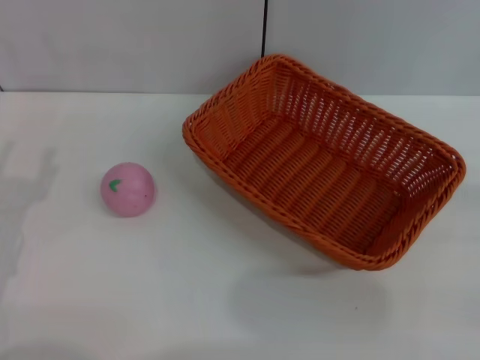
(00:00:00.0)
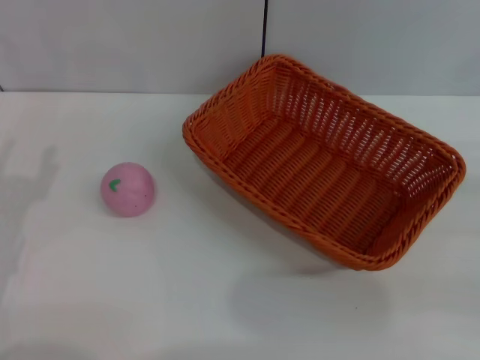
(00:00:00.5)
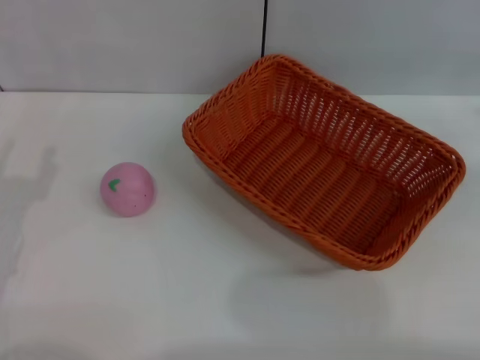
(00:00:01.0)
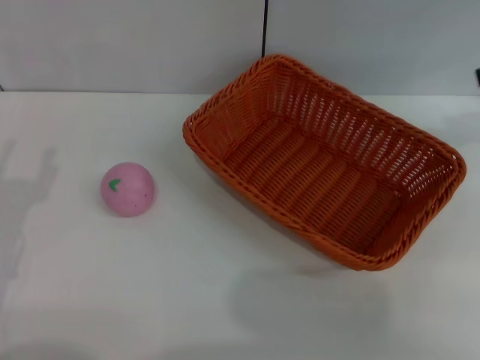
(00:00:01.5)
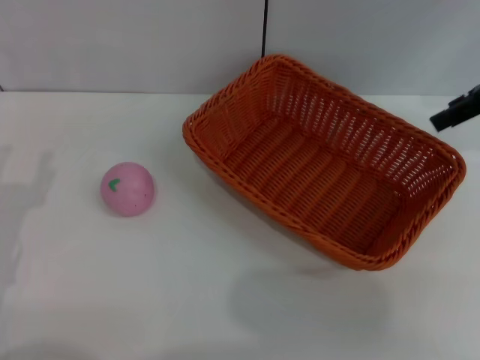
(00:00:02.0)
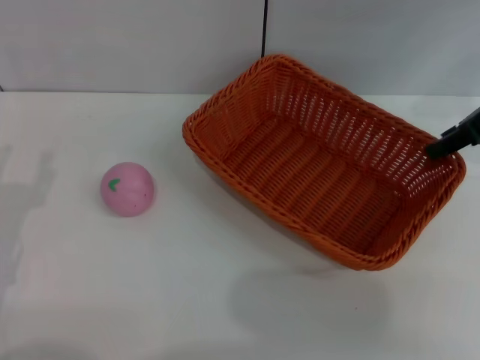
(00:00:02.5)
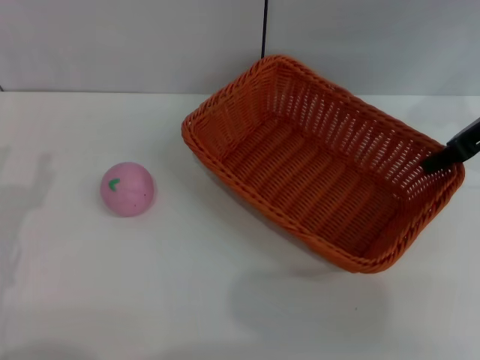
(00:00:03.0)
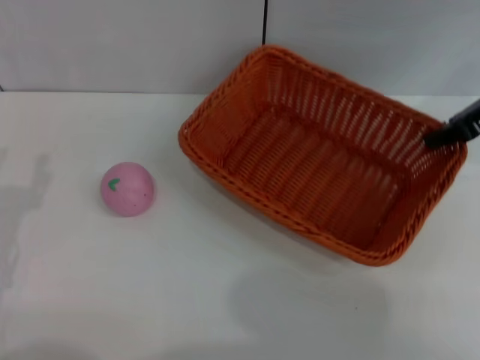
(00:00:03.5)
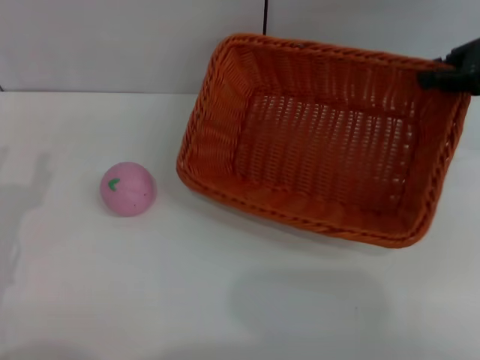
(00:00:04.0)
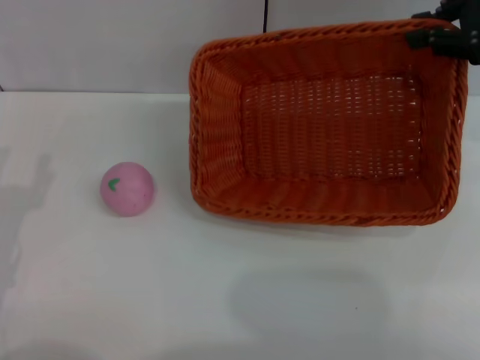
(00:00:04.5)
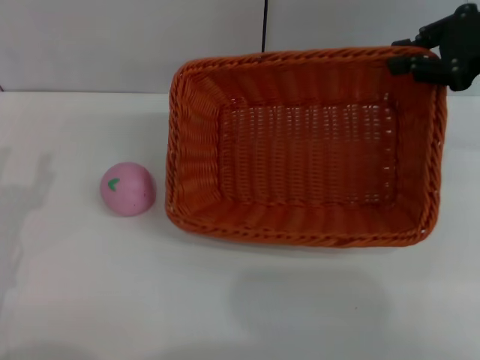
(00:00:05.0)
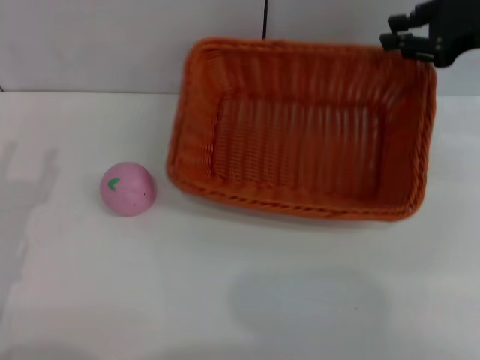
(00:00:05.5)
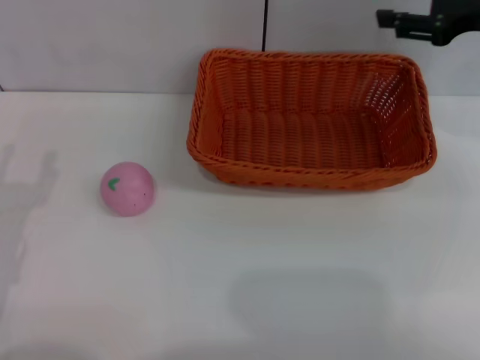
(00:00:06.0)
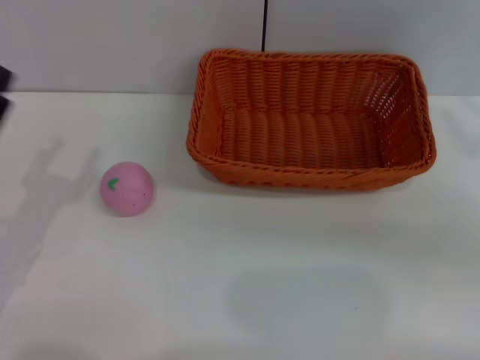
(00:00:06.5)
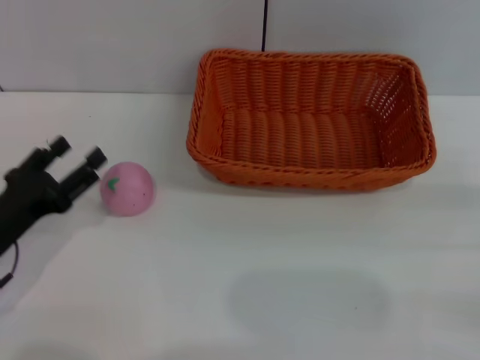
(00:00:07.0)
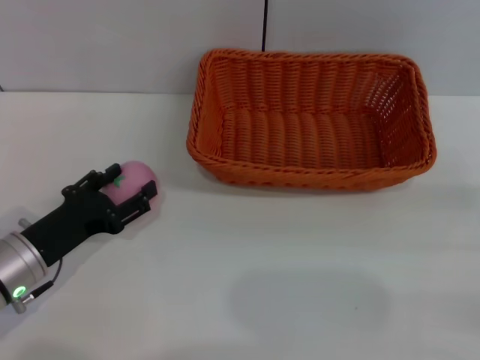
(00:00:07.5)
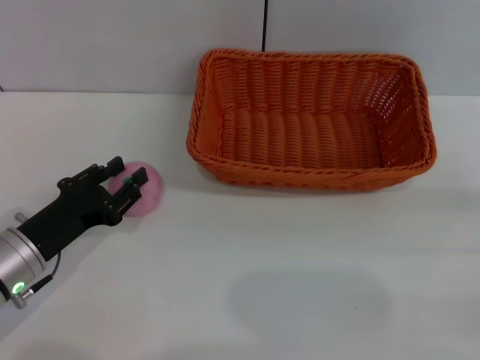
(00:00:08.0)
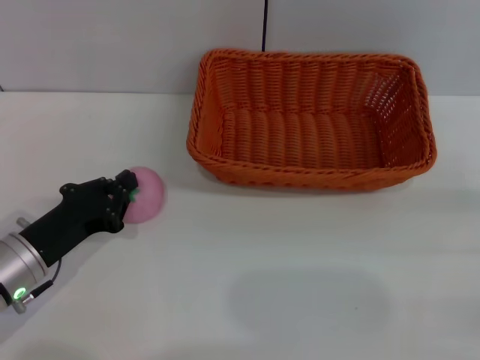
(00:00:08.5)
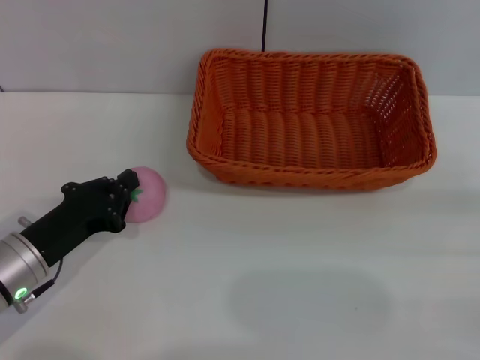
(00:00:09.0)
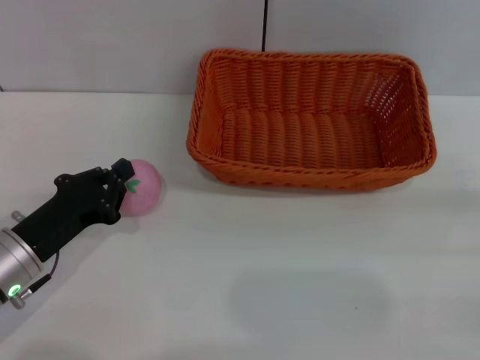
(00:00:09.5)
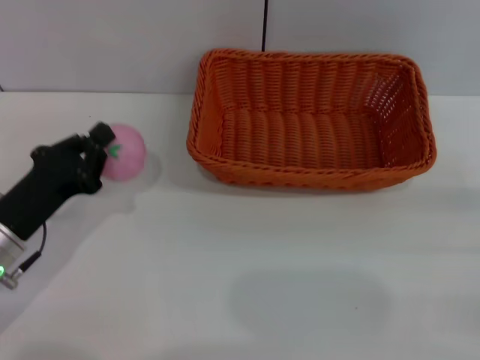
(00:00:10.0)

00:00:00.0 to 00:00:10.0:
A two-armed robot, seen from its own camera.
Step, 00:00:04.5 to 00:00:06.0: Place the dark basket in the center of view with the right gripper.
00:00:00.0 to 00:00:02.0: The right gripper shifts approximately 30 cm forward, upward and to the left.
00:00:02.0 to 00:00:04.0: The right gripper closes its fingers.
00:00:04.0 to 00:00:06.0: The right gripper opens.
00:00:06.0 to 00:00:08.0: The left gripper heads downward and forward, covering about 10 cm. The right gripper shifts approximately 25 cm backward, downward and to the right.
00:00:08.0 to 00:00:10.0: The left gripper closes.

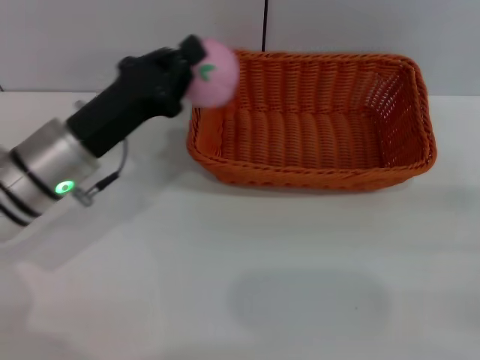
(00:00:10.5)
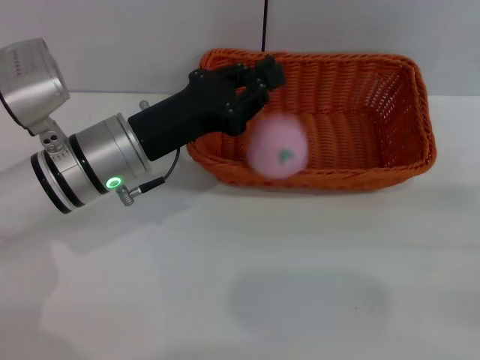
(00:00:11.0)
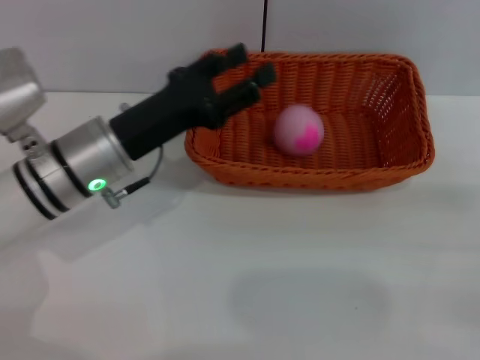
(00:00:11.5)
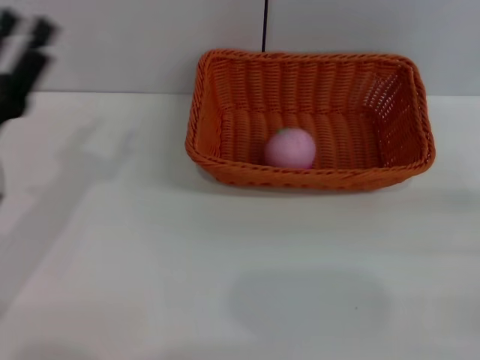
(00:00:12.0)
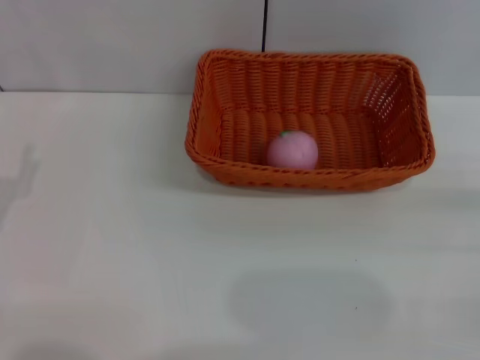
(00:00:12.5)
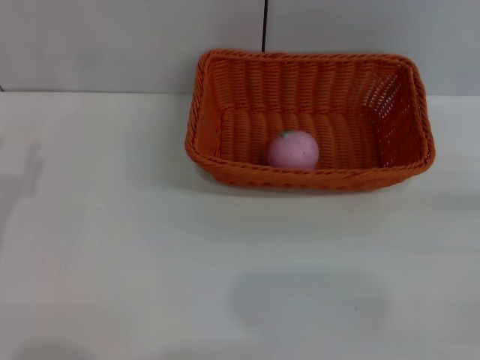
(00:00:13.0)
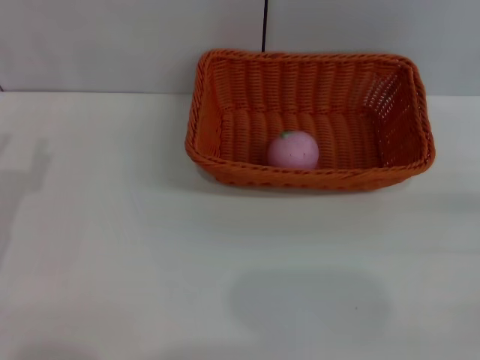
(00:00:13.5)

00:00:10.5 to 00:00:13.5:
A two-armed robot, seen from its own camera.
Step, 00:00:10.5 to 00:00:11.5: Place the peach into the basket with the left gripper.
00:00:10.5 to 00:00:12.0: The left gripper shifts about 10 cm to the left and backward, and opens.
00:00:12.0 to 00:00:13.5: The left gripper changes place by about 5 cm.

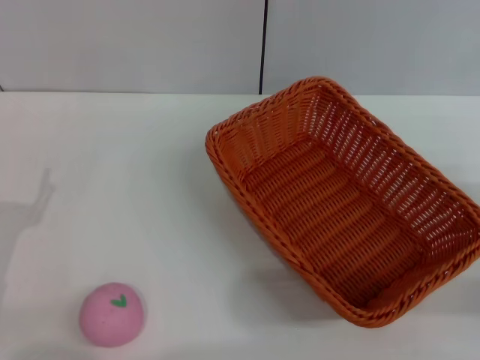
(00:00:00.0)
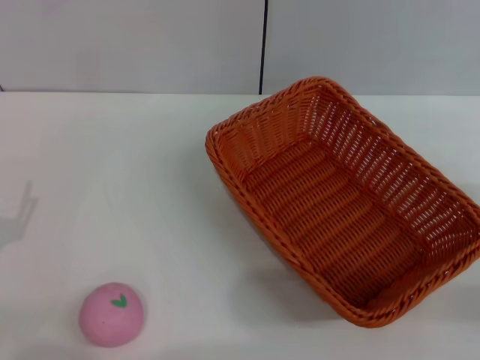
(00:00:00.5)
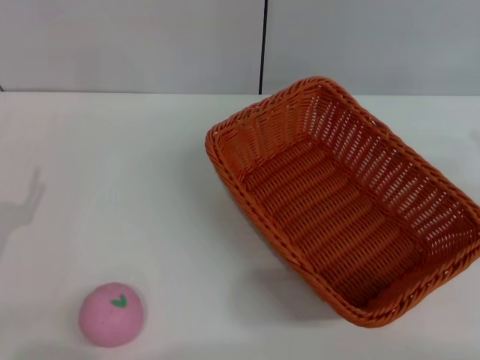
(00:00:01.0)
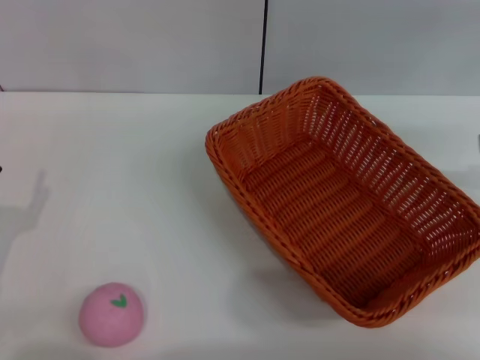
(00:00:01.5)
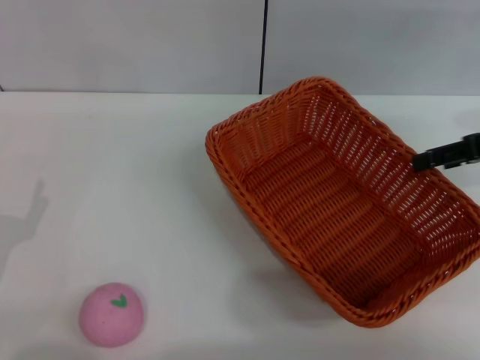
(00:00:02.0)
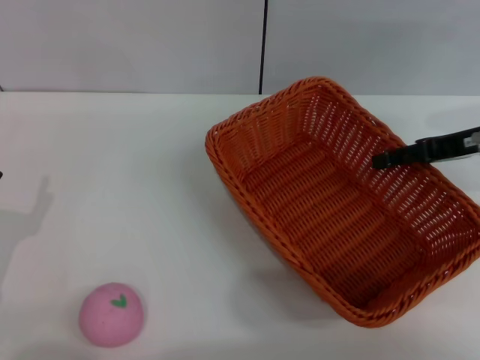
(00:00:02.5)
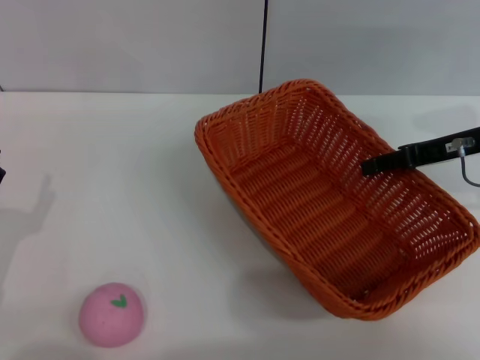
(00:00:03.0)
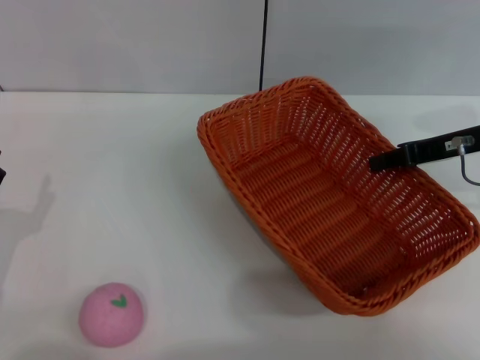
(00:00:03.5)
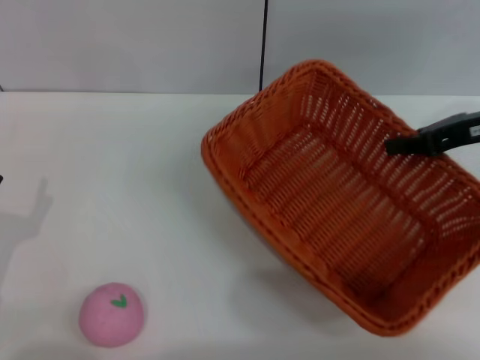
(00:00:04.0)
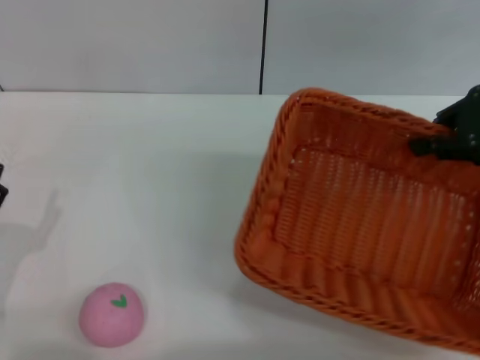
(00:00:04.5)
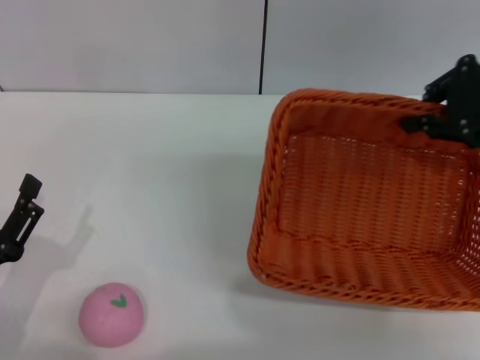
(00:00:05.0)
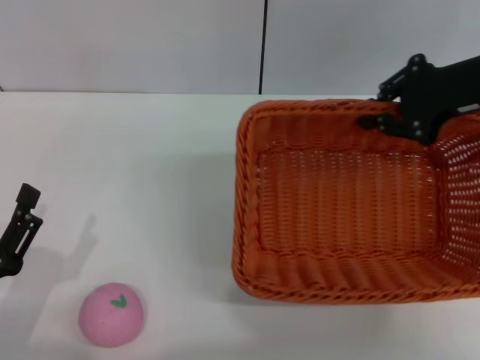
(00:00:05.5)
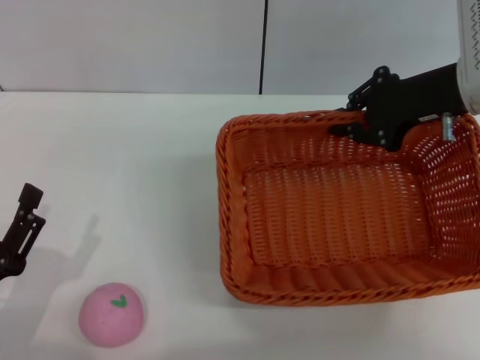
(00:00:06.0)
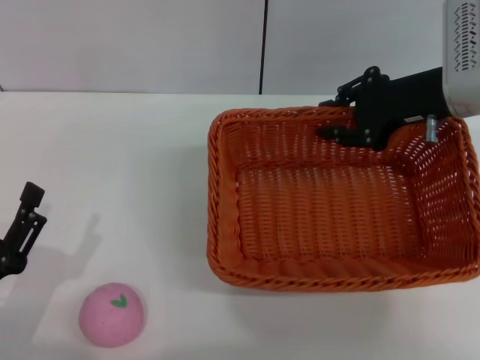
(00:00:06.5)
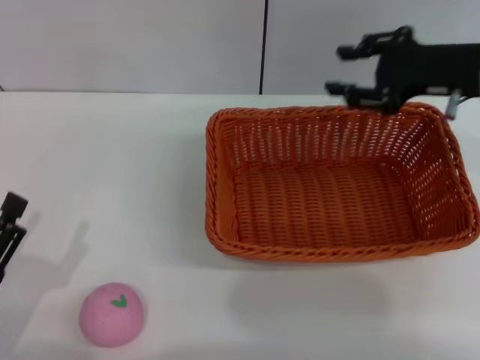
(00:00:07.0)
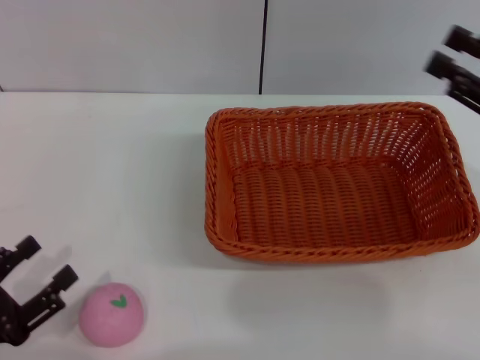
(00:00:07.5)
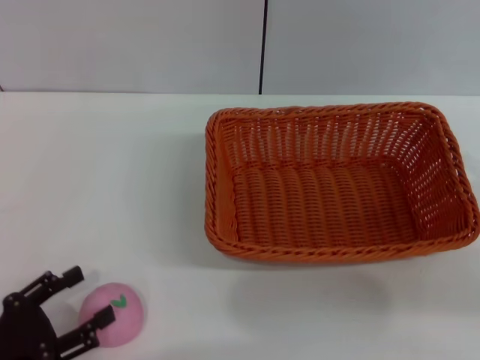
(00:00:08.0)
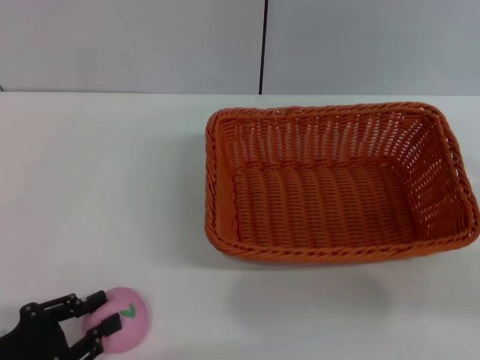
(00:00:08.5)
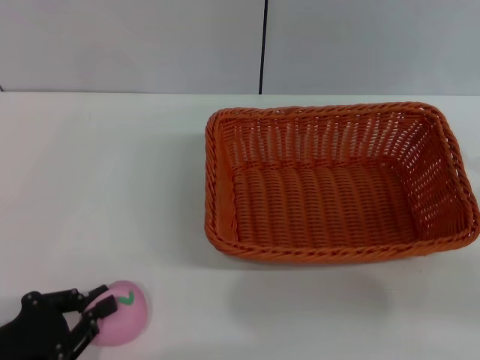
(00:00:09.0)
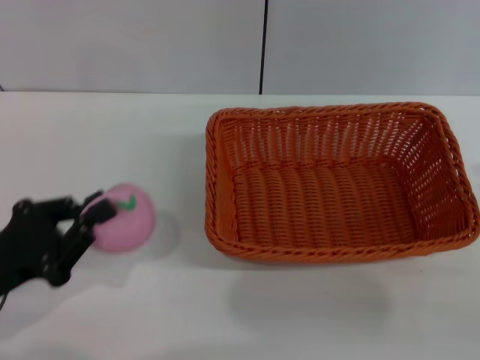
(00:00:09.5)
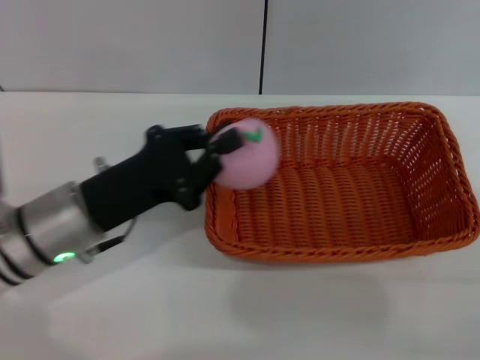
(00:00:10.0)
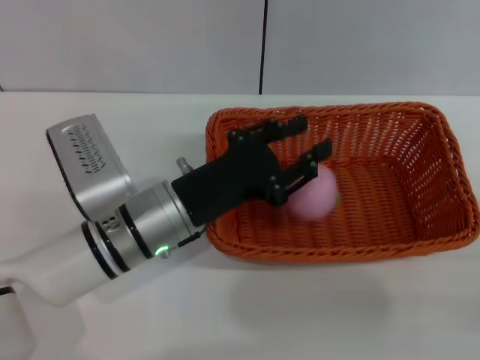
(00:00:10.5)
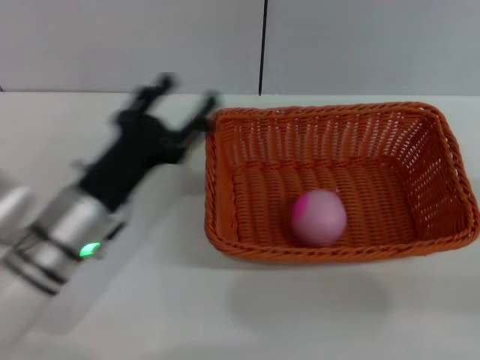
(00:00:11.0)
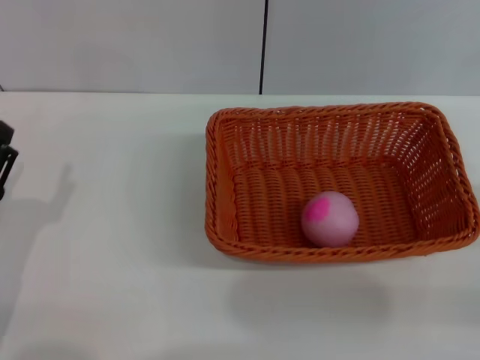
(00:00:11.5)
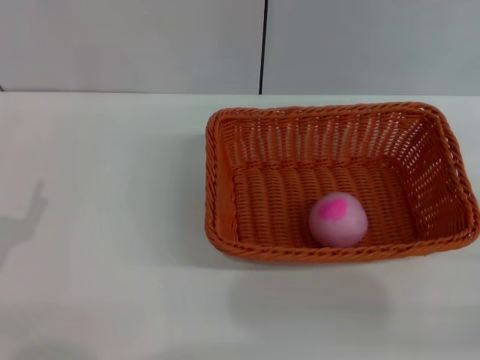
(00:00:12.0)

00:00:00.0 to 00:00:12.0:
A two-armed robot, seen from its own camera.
Step, 00:00:00.0 to 00:00:04.0: Pick up the light basket with the right gripper.
Step, 00:00:04.5 to 00:00:07.0: Place the light basket in the center of view with the right gripper.
Step, 00:00:07.5 to 00:00:09.5: Pick up the peach with the left gripper.
Step, 00:00:10.0 to 00:00:11.0: Place the peach into the basket with the left gripper.
00:00:00.0 to 00:00:02.0: The right gripper is displaced forward and upward by roughly 20 cm, and opens up.
00:00:02.0 to 00:00:04.0: The right gripper closes its fingers.
00:00:04.0 to 00:00:06.0: The right gripper goes some 5 cm to the left. The left gripper ends up approximately 5 cm from where it was.
00:00:06.0 to 00:00:08.0: The right gripper heads backward and to the right, covering some 20 cm, and opens its fingers.
00:00:08.0 to 00:00:10.0: The right gripper travels downward by roughly 5 cm; the left gripper moves forward and to the right, approximately 20 cm, and closes its fingers.
00:00:10.0 to 00:00:12.0: The left gripper heads to the left and backward, covering some 15 cm, and opens.
